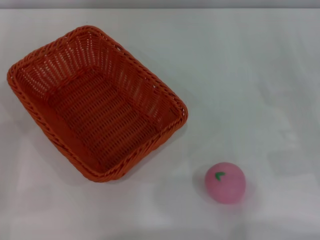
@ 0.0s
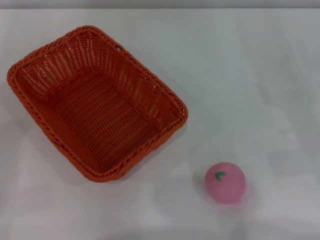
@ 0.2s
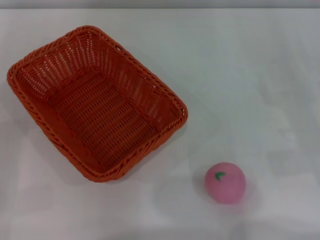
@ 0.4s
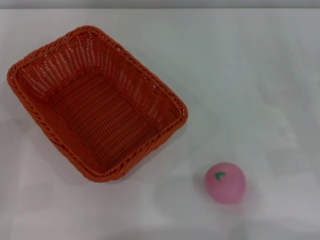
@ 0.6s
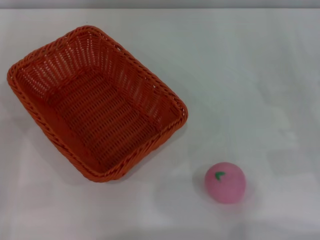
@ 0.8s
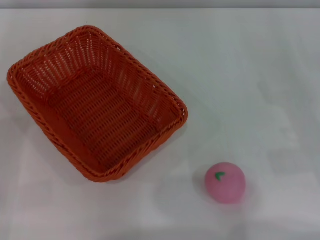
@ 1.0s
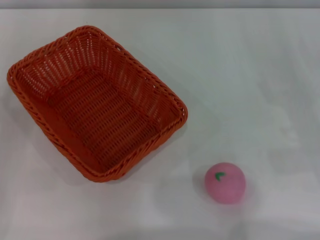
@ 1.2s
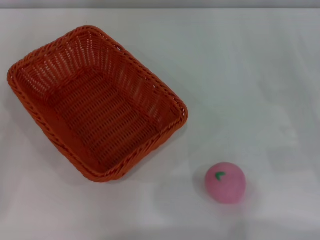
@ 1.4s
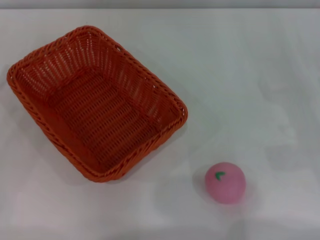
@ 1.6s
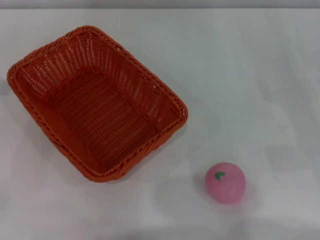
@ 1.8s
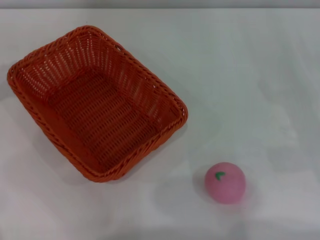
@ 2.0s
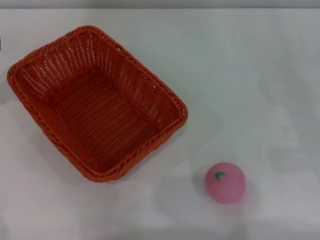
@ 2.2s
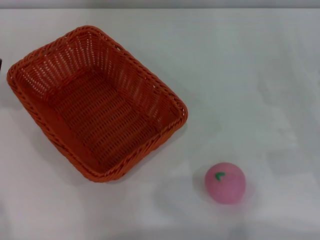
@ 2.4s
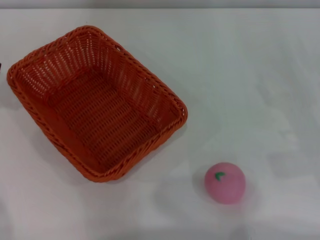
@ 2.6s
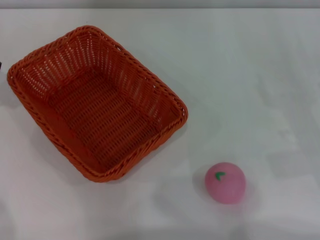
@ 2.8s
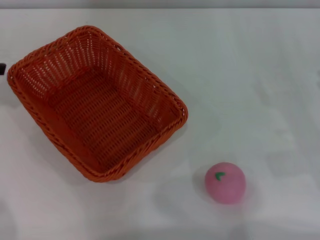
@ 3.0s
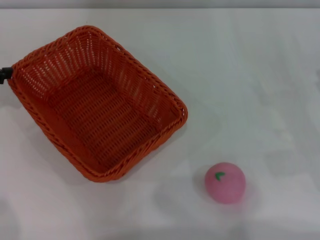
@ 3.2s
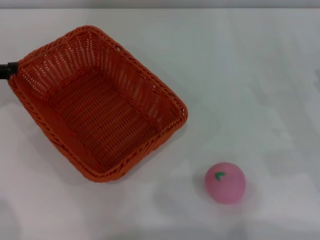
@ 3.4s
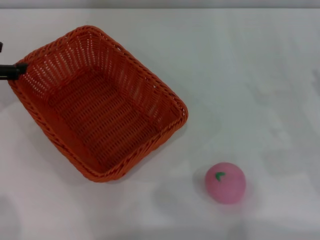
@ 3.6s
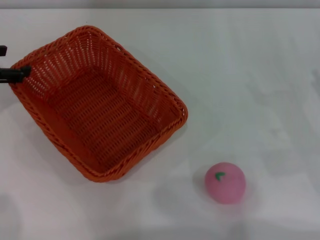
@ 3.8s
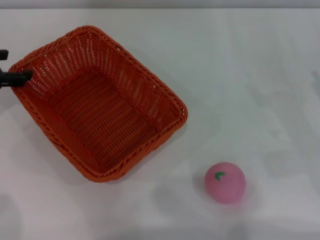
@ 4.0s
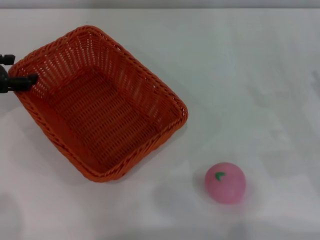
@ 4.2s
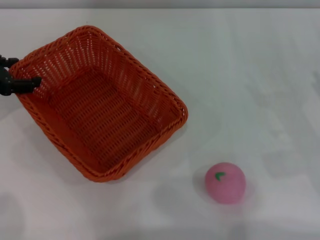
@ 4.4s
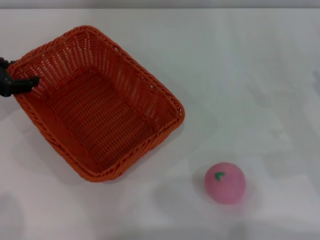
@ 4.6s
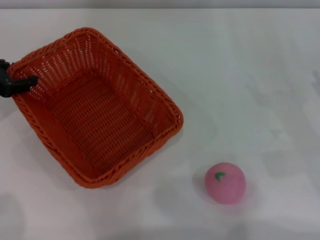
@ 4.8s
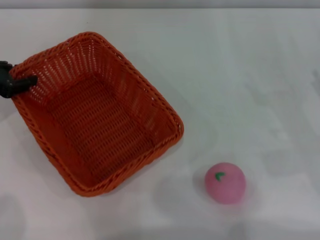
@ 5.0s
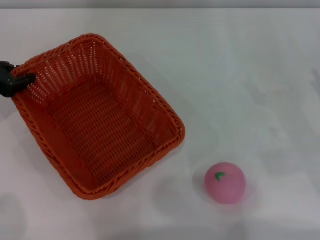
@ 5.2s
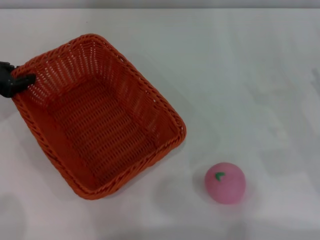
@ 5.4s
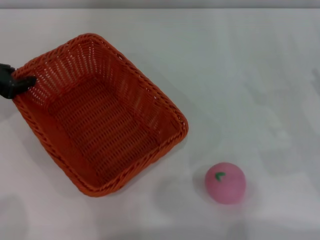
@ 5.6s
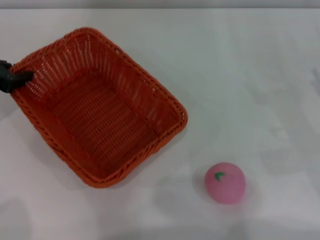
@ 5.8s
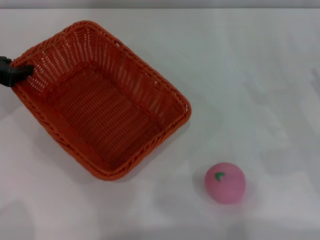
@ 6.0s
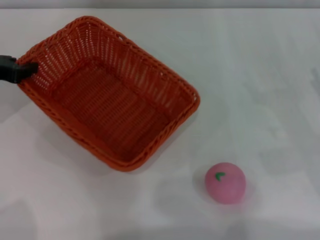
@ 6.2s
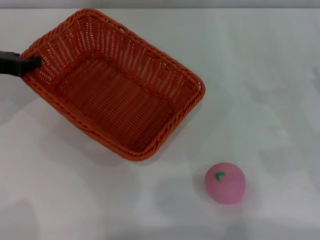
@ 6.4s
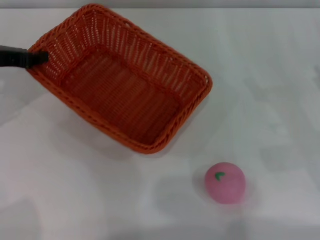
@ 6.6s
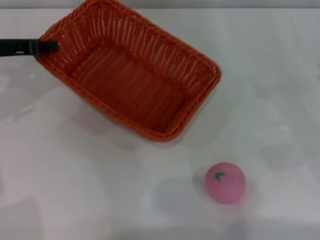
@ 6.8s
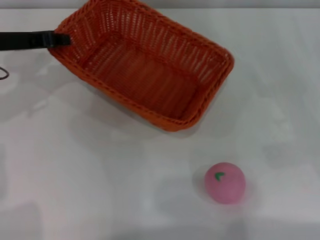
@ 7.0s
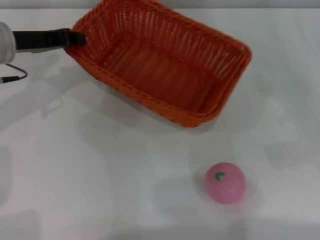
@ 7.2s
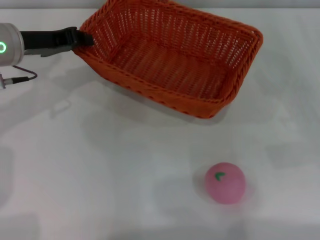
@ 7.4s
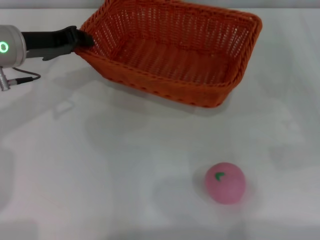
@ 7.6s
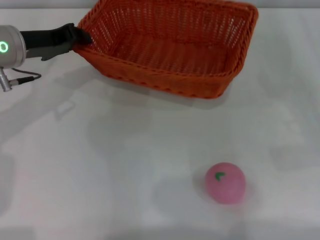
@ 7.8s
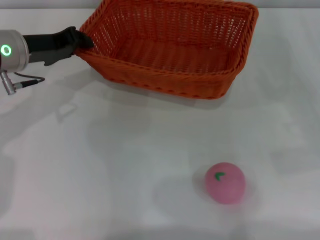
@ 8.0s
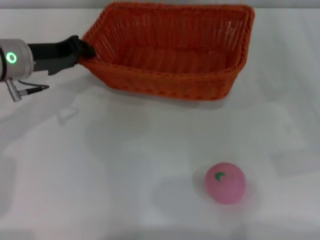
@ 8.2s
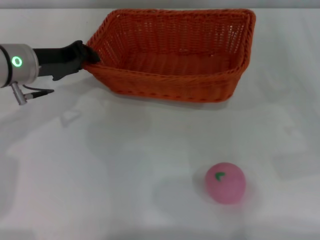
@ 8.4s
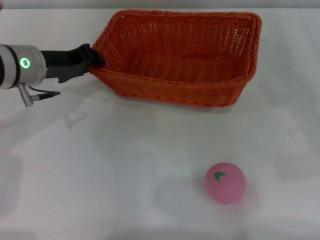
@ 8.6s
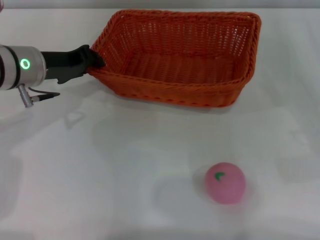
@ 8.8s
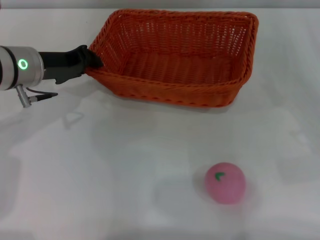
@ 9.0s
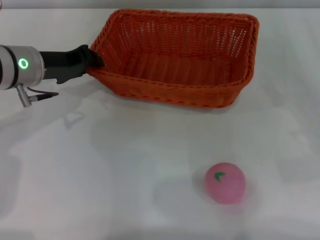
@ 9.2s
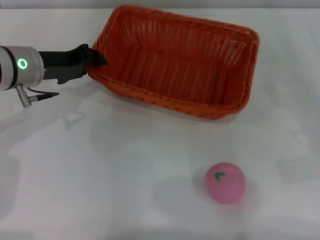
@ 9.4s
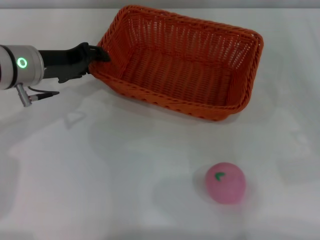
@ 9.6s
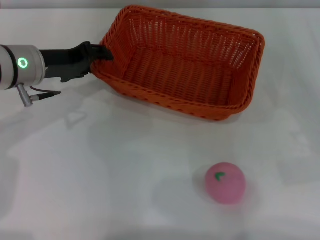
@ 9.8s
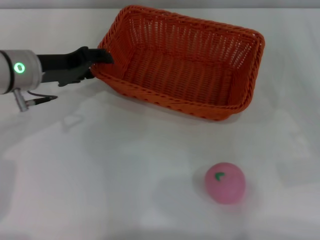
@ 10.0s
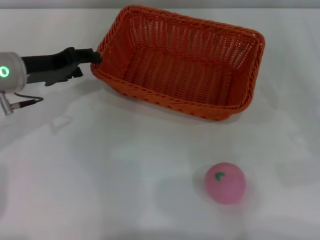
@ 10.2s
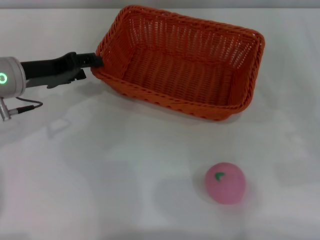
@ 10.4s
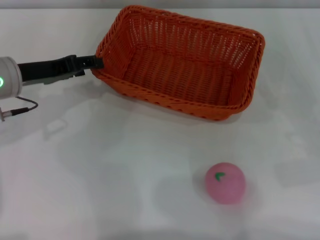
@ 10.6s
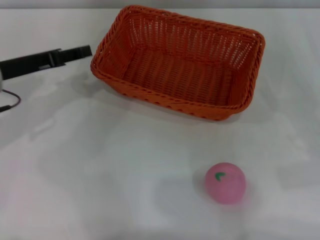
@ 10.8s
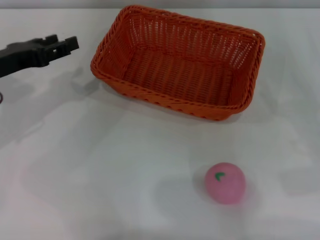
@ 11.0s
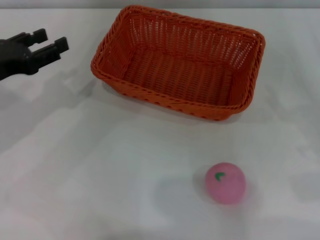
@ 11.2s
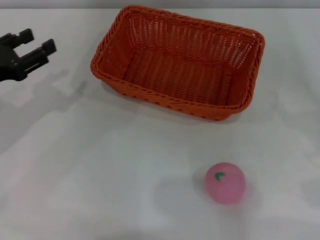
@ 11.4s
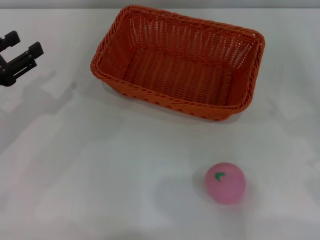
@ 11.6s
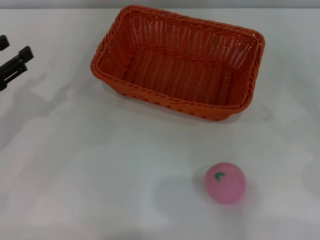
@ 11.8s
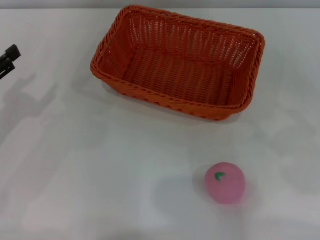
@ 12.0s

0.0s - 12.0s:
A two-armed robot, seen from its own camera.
Step, 0.0s - 6.2s: Pick up the light basket with the left gripper.
Step, 6.6s - 11.0s: Place the light basket in the center of view with the right gripper.
3.0s - 4.4s: The left gripper is displaced downward by some 5 cm.
4.4s - 6.0s: The left gripper closes.
6.0s - 7.6s: The left gripper is displaced to the right by some 10 cm.
7.6s - 9.0s: The grippers make only small movements.
9.0s - 10.4s: The left gripper opens.
10.4s - 12.0s: The left gripper goes roughly 15 cm to the left and backward.

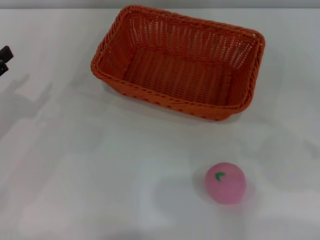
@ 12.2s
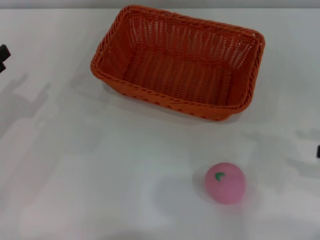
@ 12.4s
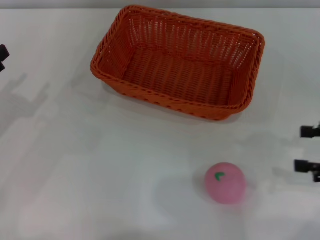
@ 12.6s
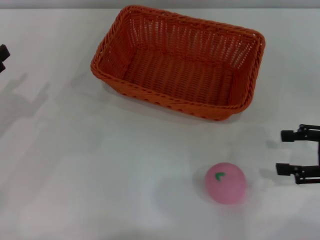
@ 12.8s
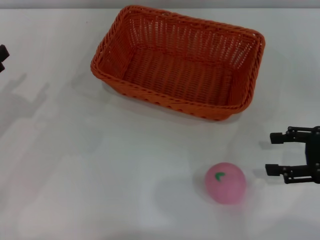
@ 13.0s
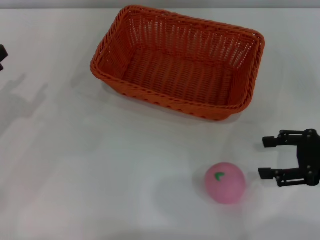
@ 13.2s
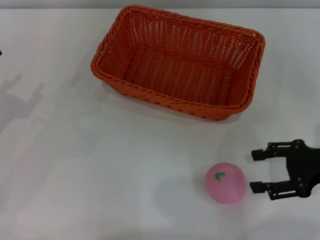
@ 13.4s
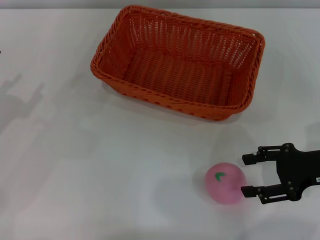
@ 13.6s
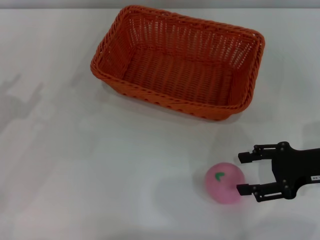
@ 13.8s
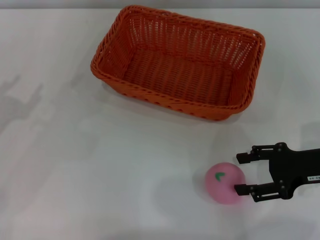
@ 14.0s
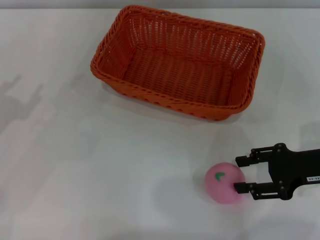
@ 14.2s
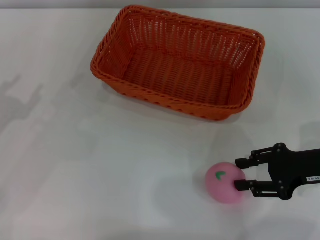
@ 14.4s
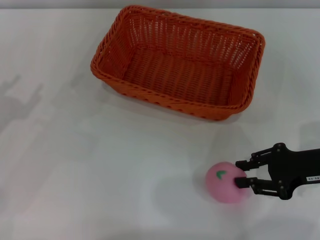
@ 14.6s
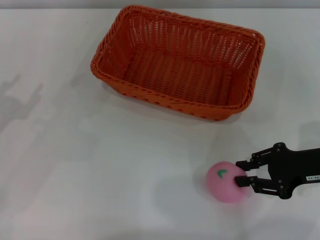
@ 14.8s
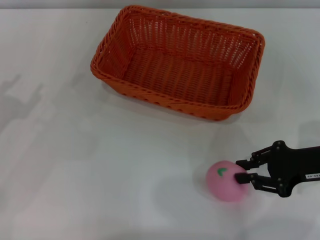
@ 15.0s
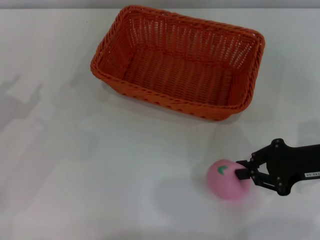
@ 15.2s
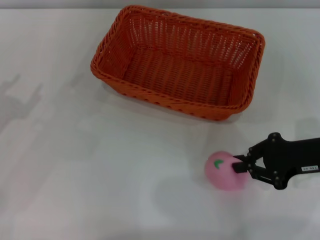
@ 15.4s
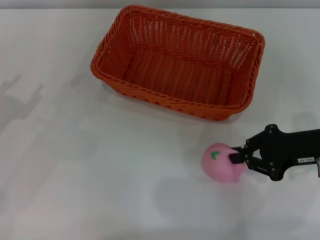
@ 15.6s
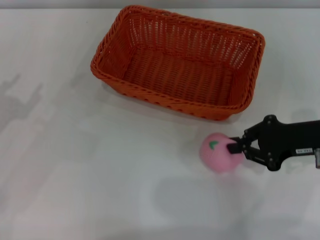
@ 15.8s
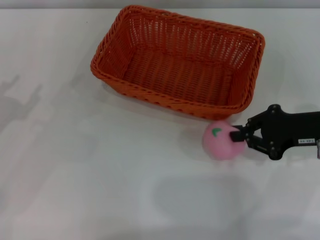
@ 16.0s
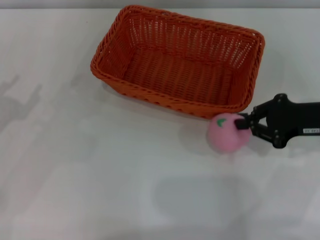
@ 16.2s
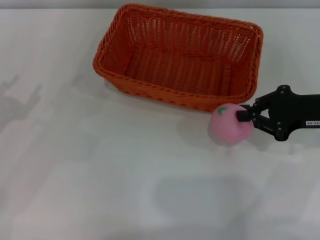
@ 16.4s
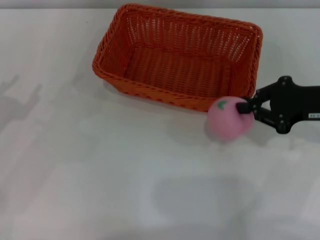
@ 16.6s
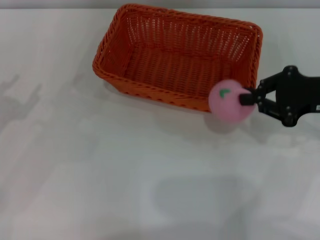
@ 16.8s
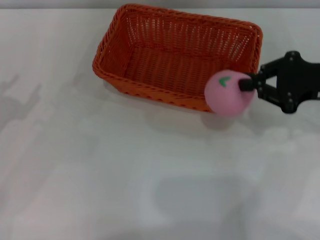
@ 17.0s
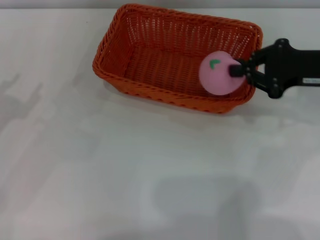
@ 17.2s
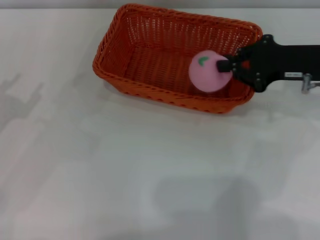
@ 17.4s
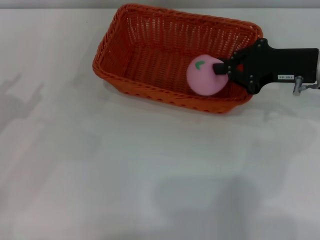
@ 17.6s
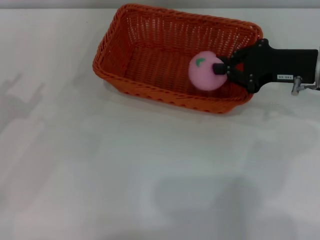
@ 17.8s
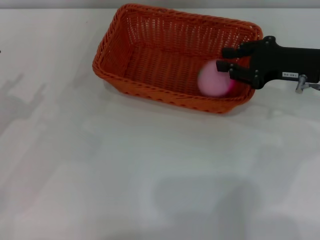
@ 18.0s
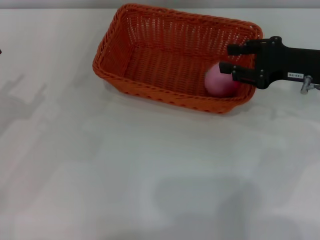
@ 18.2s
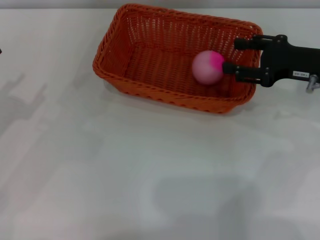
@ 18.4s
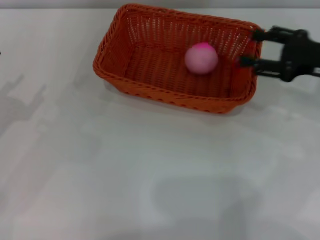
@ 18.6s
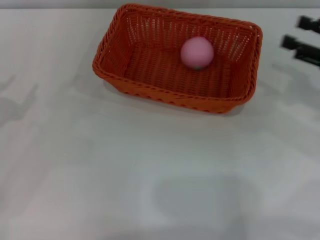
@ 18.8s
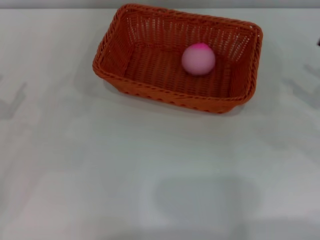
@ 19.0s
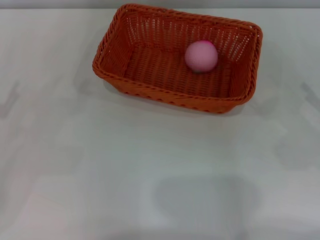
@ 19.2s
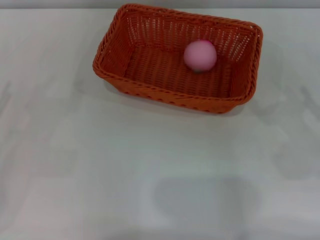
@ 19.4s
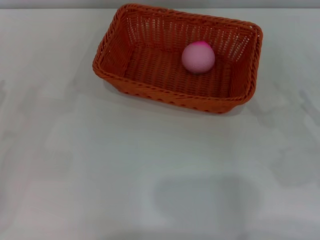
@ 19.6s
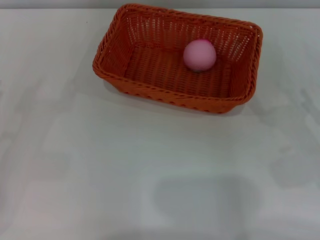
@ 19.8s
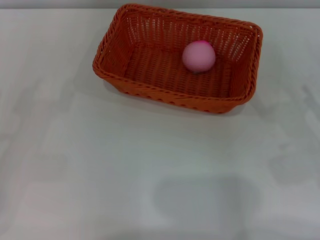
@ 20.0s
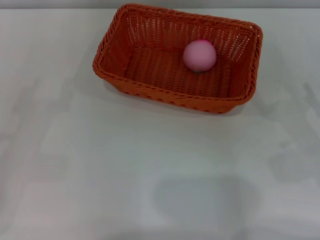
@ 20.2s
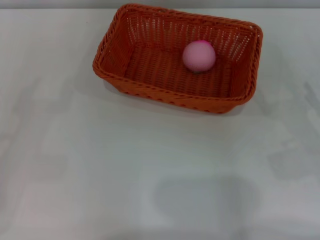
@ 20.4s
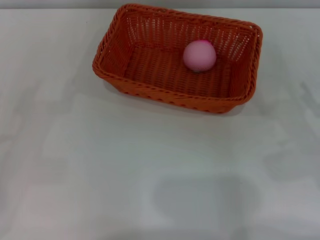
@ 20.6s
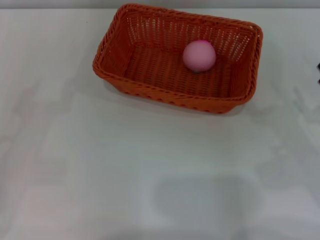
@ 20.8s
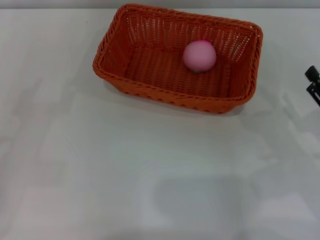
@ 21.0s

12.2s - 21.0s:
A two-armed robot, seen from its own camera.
12.2s - 13.6s: The right gripper moves to the left, forward and downward, roughly 15 cm.
13.6s - 15.2s: The right gripper closes.
15.2s - 16.6s: The right gripper shifts by roughly 5 cm.
16.6s - 18.0s: The right gripper ends up some 5 cm from where it was.
18.0s - 19.6s: The right gripper is displaced backward, to the right and downward by about 15 cm, and opens.

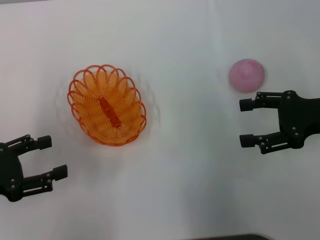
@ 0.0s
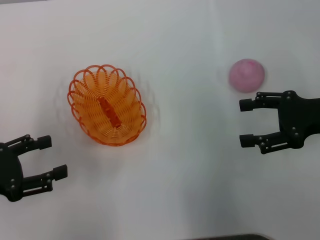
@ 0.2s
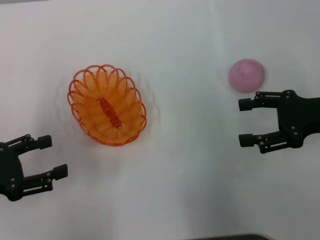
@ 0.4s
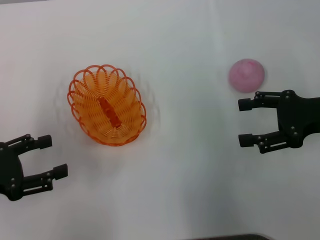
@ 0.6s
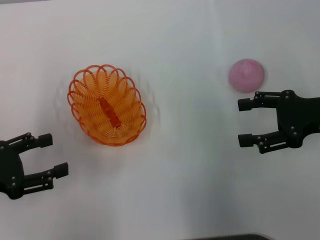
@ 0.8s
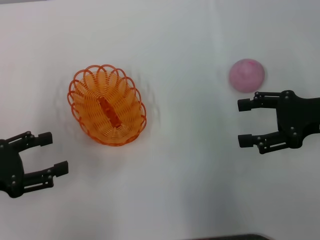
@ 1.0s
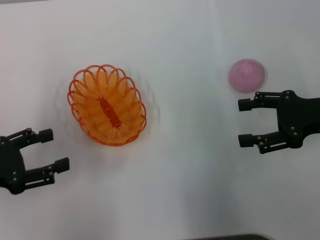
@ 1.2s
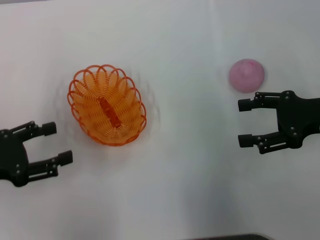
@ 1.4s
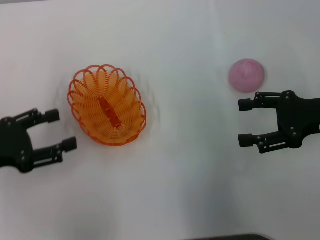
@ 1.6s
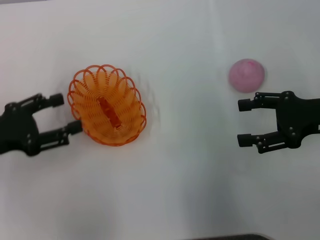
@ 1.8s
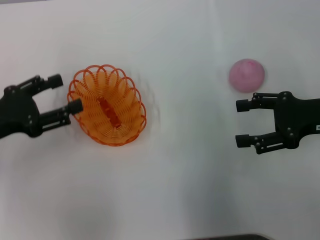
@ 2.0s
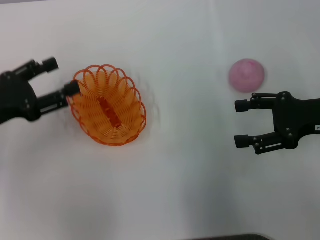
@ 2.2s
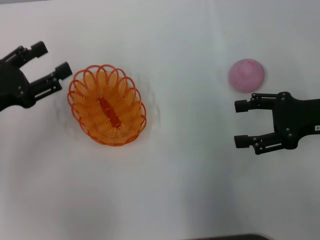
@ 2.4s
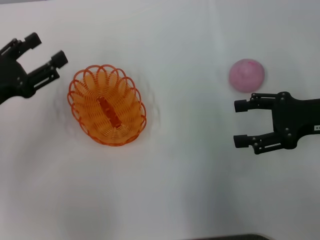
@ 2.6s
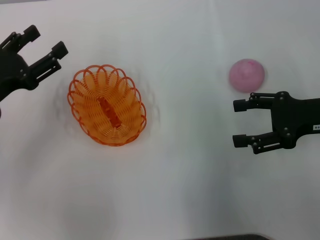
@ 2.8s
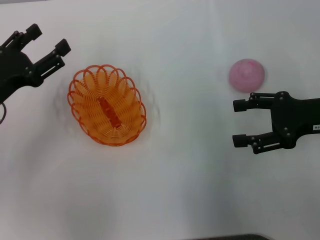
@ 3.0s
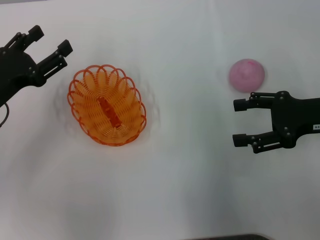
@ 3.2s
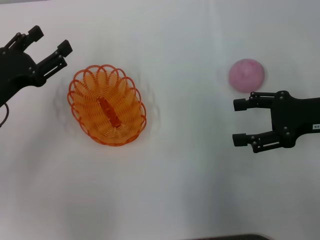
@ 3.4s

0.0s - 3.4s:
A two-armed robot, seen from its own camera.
0.0s - 1.6s: The grippers move only a little.
1.6s - 3.4s: The left gripper travels forward by about 5 cm.
